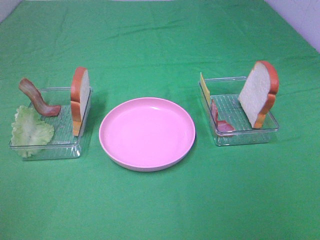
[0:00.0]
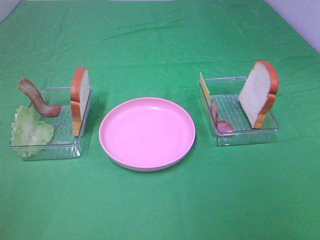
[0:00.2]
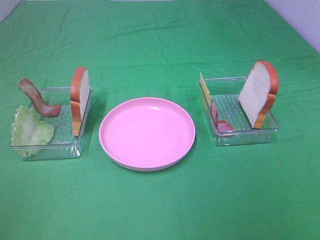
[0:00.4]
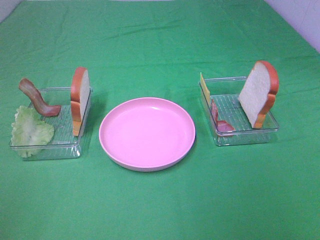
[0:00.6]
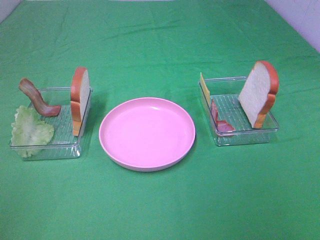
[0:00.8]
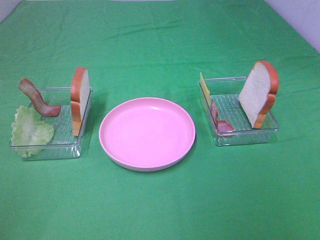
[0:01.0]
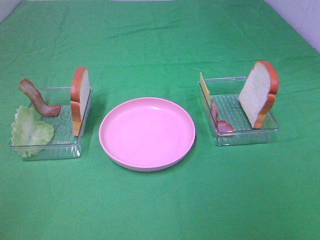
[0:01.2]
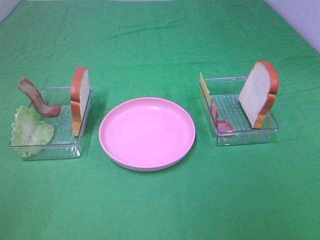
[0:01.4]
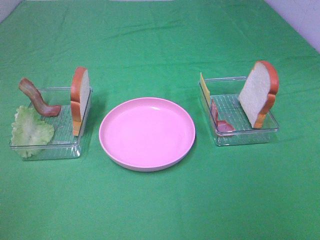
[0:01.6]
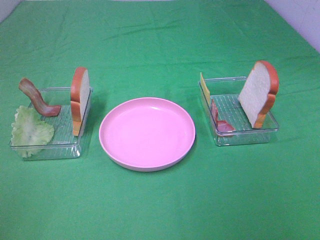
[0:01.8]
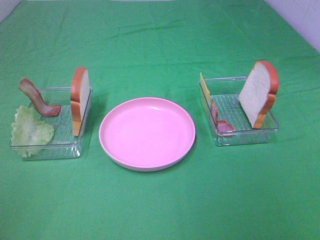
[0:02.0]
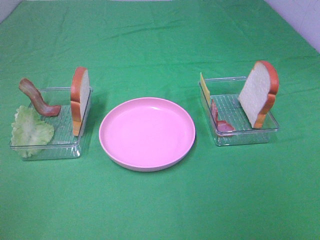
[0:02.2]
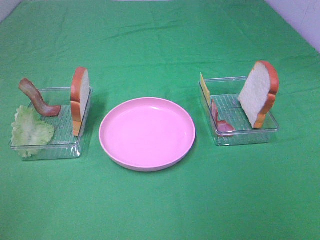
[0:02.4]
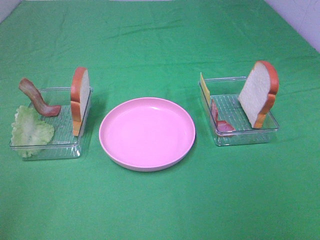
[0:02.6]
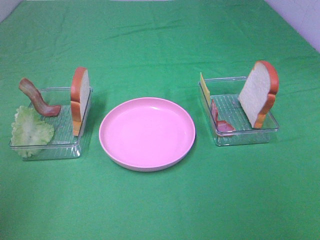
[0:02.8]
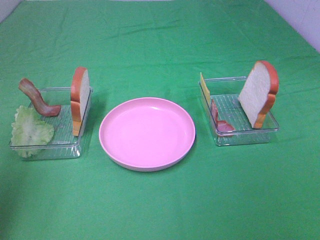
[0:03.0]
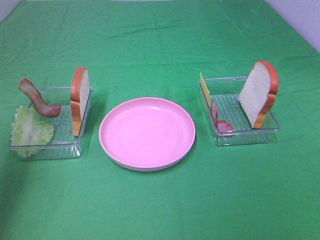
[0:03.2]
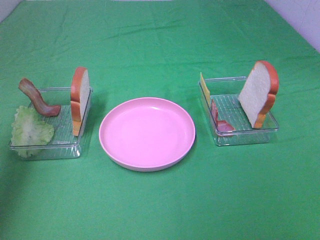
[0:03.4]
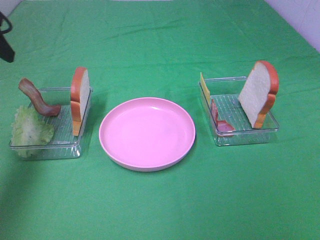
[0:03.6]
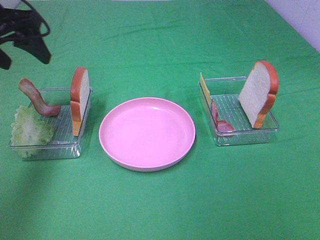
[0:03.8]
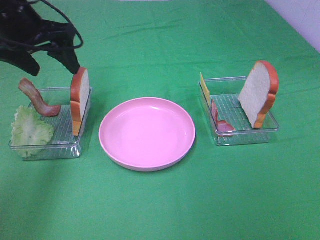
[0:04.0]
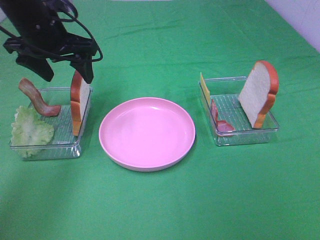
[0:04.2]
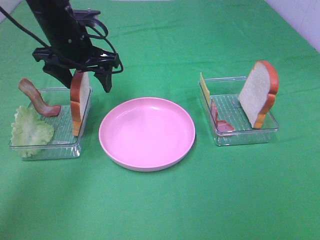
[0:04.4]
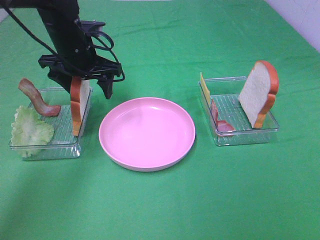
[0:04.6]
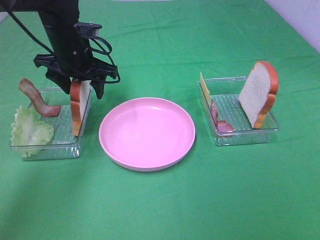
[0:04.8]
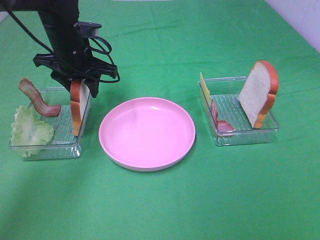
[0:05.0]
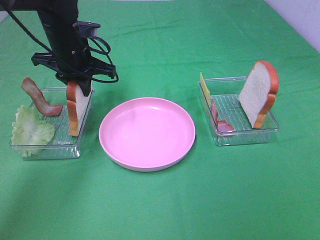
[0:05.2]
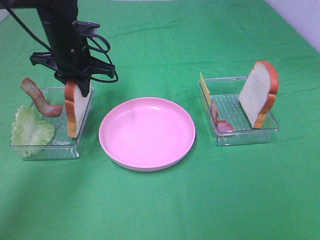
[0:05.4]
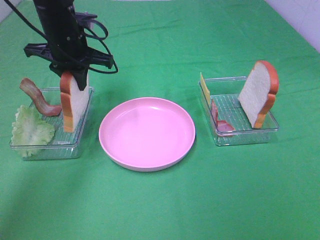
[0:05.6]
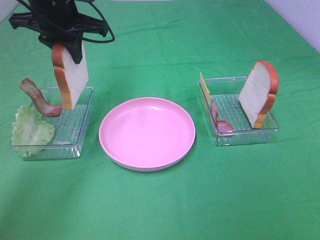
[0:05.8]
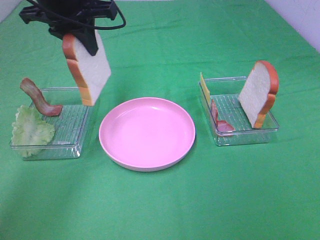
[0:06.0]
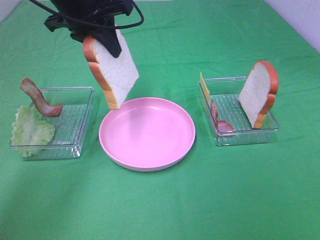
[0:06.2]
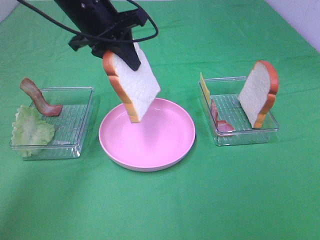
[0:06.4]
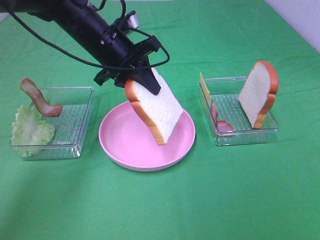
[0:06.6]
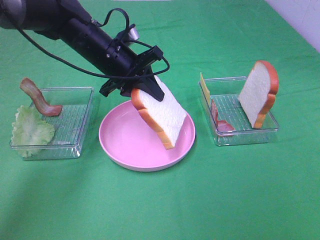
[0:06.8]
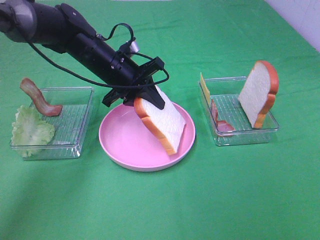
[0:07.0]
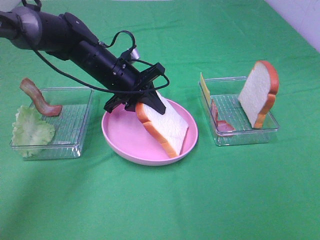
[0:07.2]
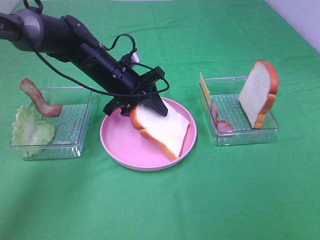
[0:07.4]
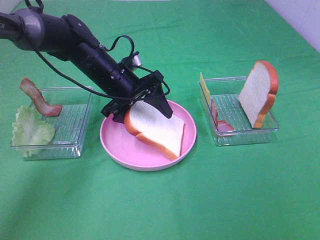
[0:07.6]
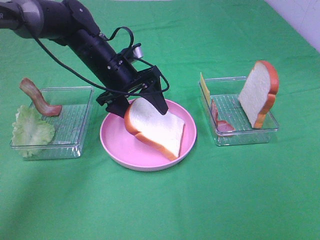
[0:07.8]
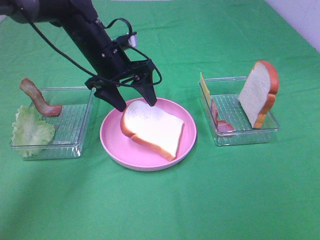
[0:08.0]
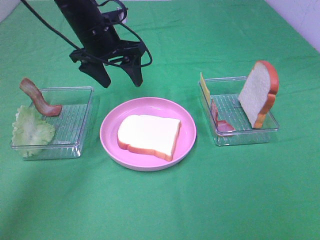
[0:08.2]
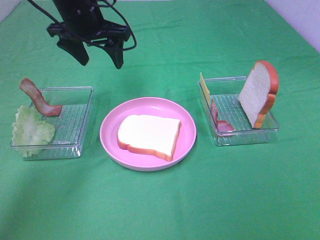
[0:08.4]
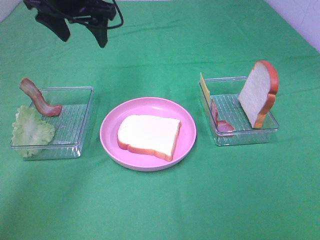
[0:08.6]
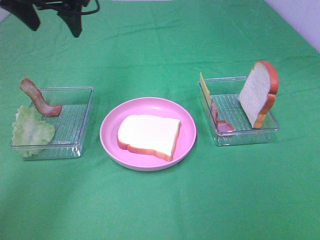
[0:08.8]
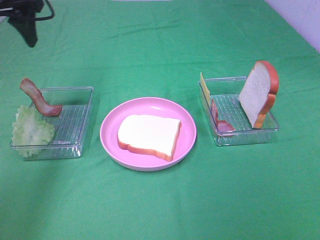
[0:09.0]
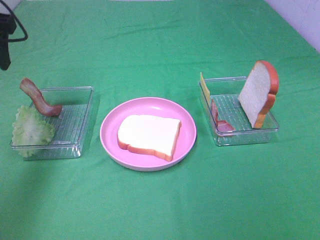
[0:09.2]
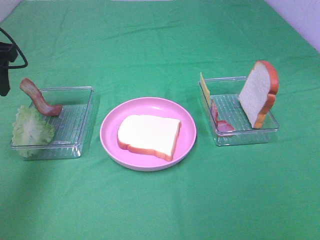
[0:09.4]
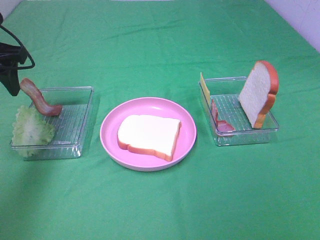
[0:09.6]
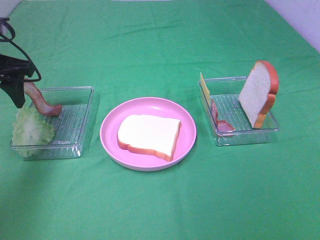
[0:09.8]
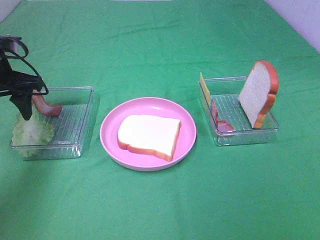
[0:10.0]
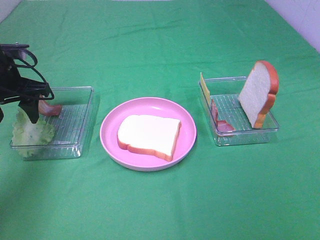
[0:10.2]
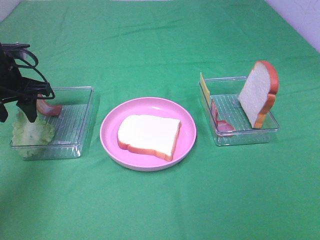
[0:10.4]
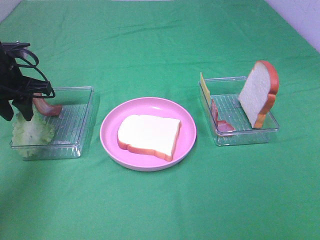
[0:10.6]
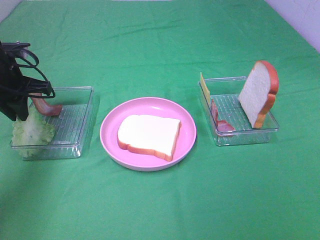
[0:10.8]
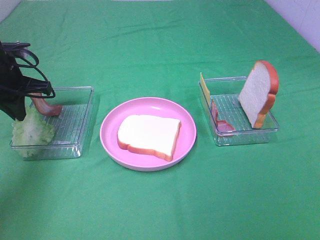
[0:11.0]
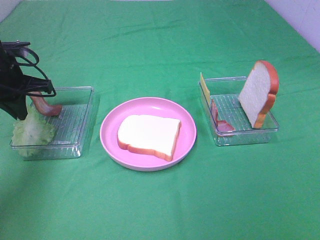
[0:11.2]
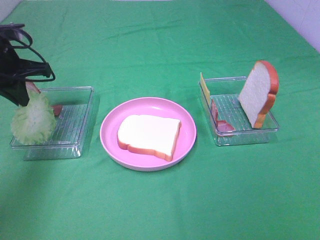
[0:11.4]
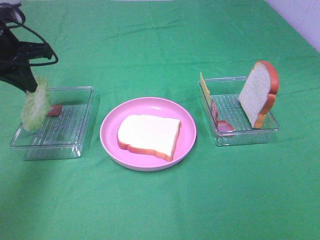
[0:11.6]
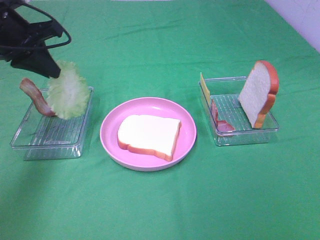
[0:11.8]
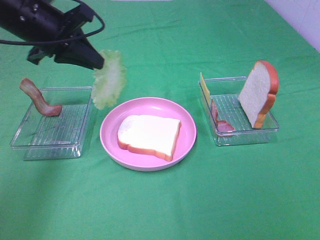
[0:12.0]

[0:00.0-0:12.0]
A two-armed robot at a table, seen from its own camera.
Task of the whole recording: Make sandwiches.
Step, 0.0 to 5.2 s: Left hand:grab the bread slice.
Step, 5.4 to 8.0 s: Left hand:place the bread slice on the plate.
Step, 8.2 to 10.8 s: Left hand:grab the lettuce slice.
0.0 to 1.6 s: The two grippers keep their place.
1.6 to 3.0 s: The left gripper is displaced forward by some 15 cm.
3.0 to 4.4 s: The left gripper heads forward, to the right and downward, covering roughly 35 cm.
4.4 to 6.0 s: The left gripper moves upward, some 10 cm, and closes its fingers.
6.0 to 7.6 s: The left gripper heads downward, covering some 15 cm, and opens.
7.6 to 9.0 s: The left gripper goes approximately 25 cm upward and to the left.
9.0 to 10.4 s: The left gripper goes approximately 15 cm downward.
10.4 to 12.0 s: The left gripper moves to the right and upward, approximately 10 cm, and closes its fingers.

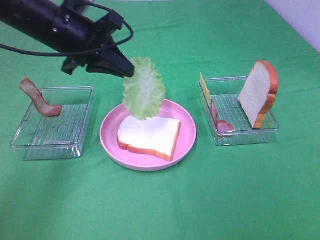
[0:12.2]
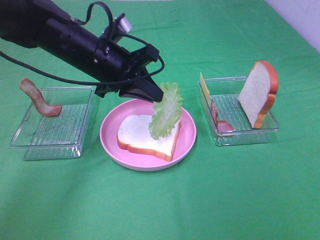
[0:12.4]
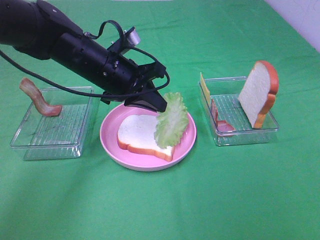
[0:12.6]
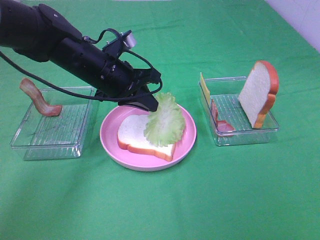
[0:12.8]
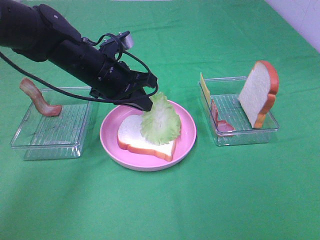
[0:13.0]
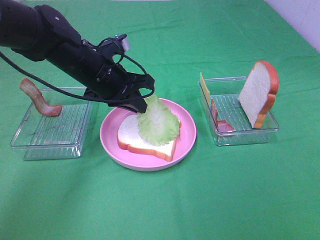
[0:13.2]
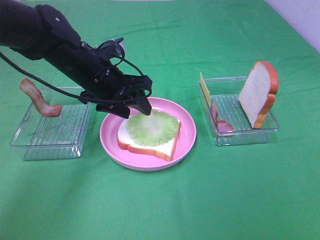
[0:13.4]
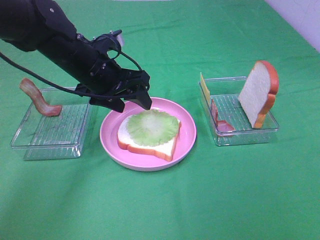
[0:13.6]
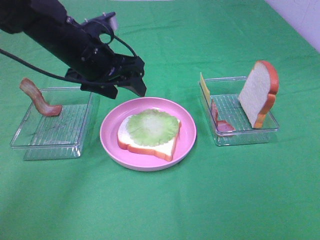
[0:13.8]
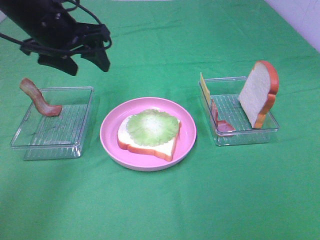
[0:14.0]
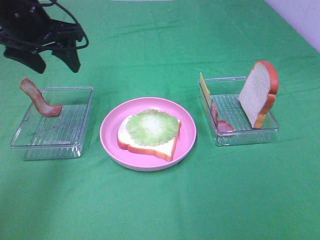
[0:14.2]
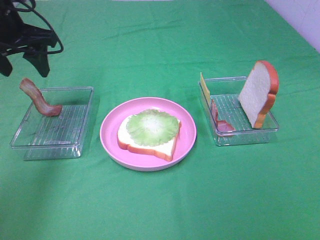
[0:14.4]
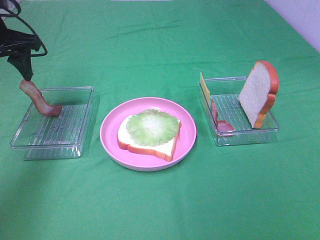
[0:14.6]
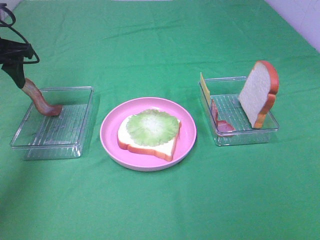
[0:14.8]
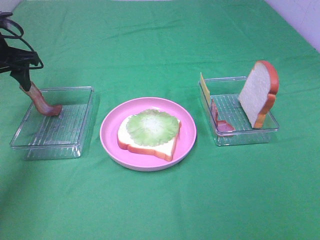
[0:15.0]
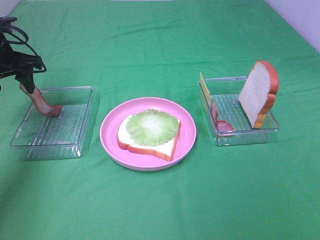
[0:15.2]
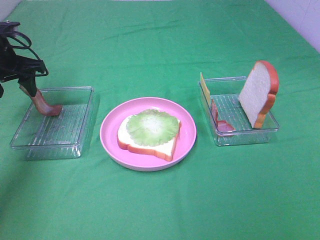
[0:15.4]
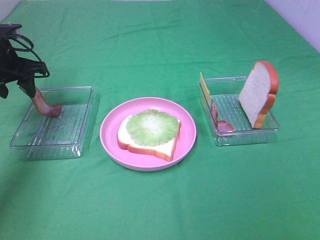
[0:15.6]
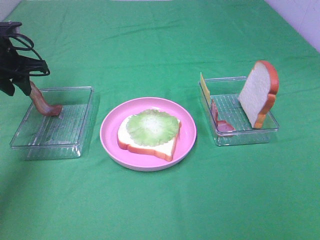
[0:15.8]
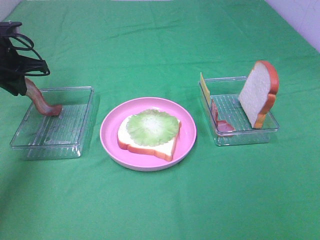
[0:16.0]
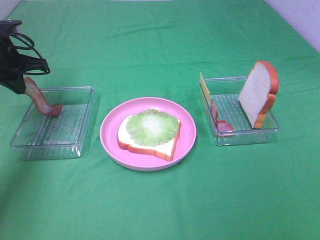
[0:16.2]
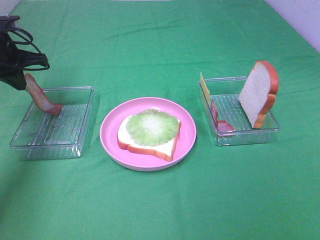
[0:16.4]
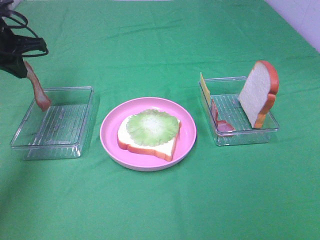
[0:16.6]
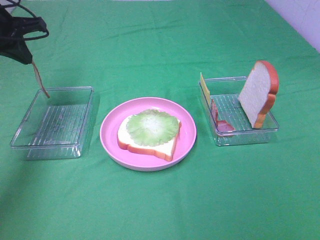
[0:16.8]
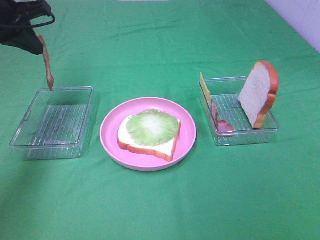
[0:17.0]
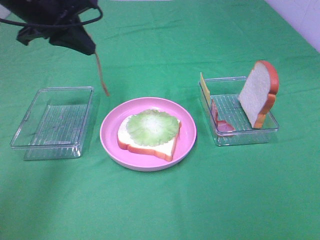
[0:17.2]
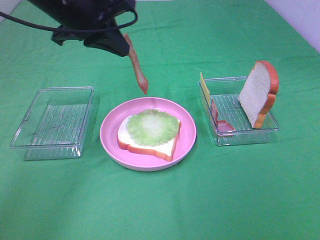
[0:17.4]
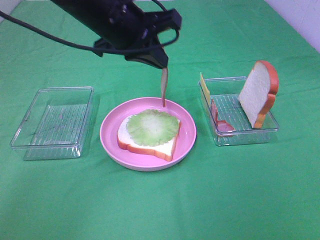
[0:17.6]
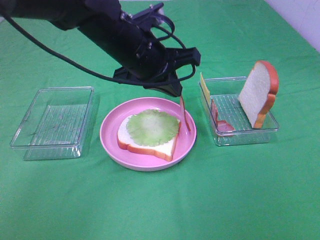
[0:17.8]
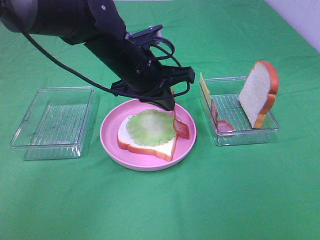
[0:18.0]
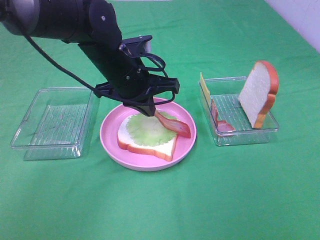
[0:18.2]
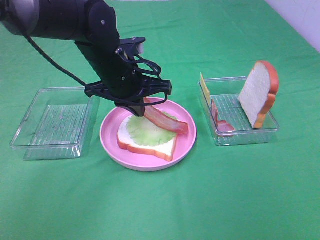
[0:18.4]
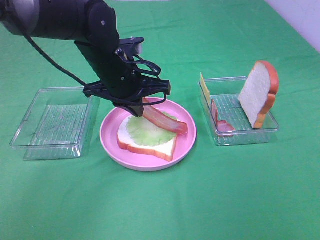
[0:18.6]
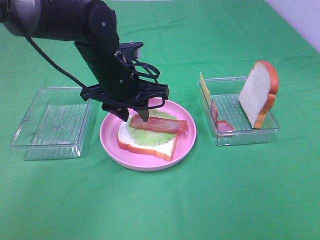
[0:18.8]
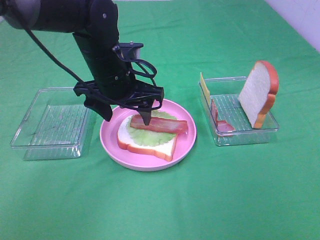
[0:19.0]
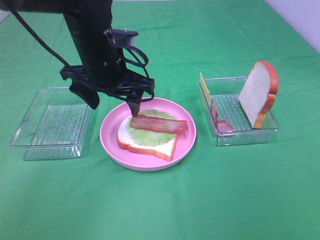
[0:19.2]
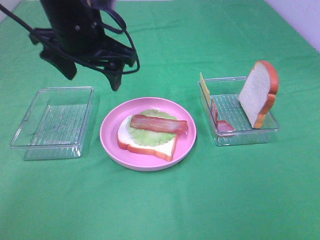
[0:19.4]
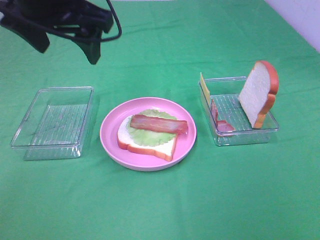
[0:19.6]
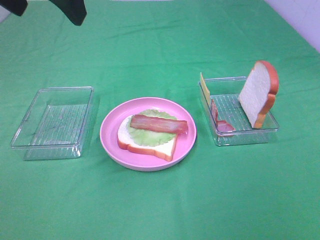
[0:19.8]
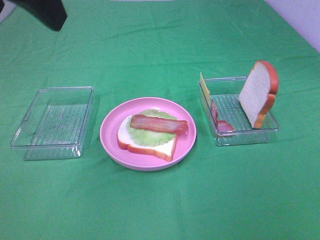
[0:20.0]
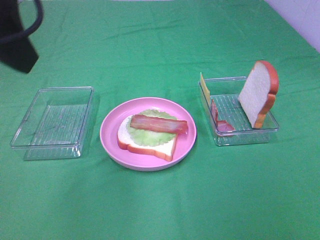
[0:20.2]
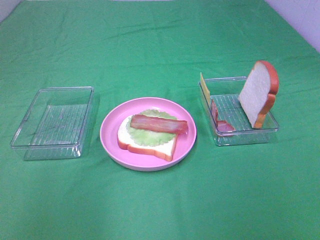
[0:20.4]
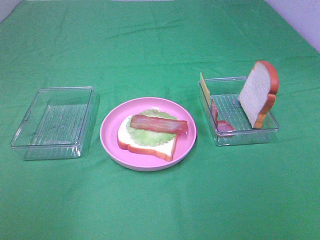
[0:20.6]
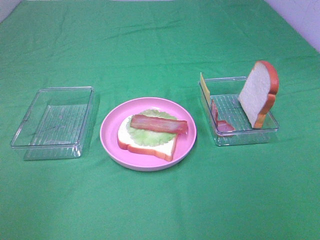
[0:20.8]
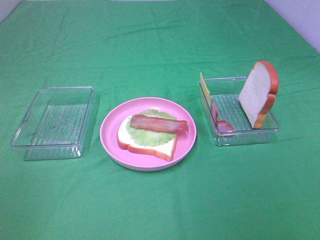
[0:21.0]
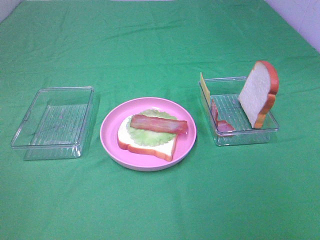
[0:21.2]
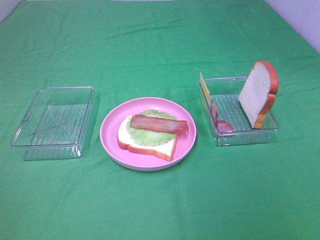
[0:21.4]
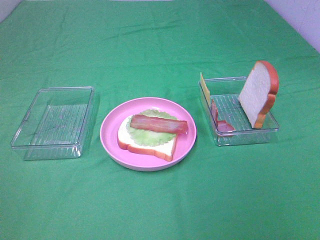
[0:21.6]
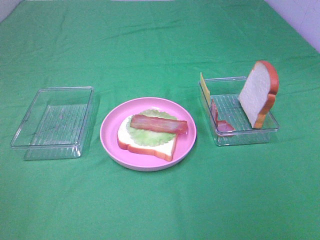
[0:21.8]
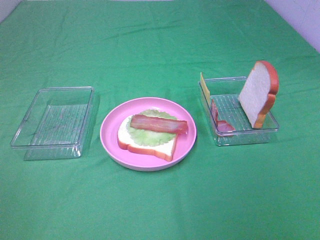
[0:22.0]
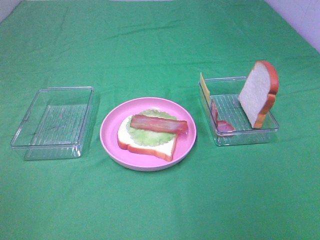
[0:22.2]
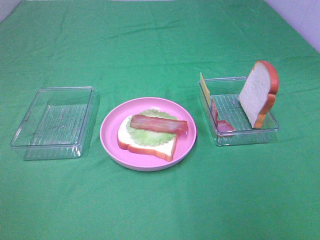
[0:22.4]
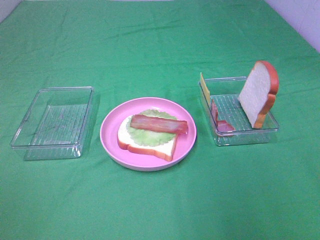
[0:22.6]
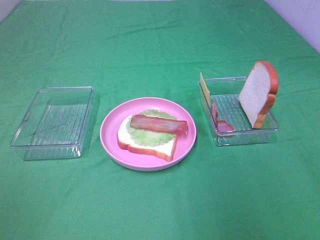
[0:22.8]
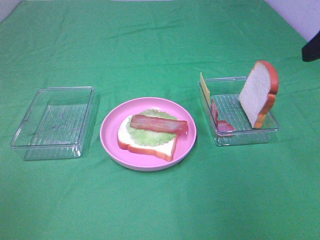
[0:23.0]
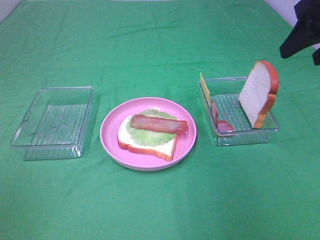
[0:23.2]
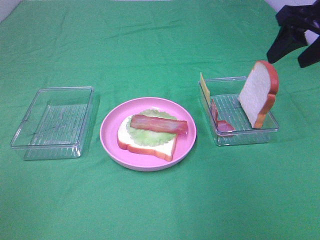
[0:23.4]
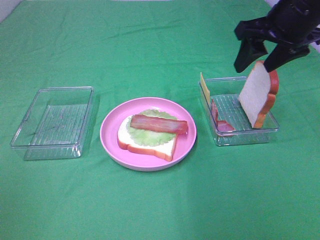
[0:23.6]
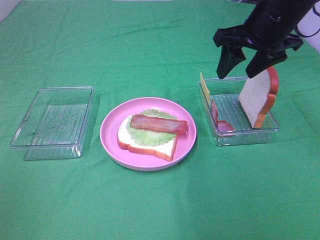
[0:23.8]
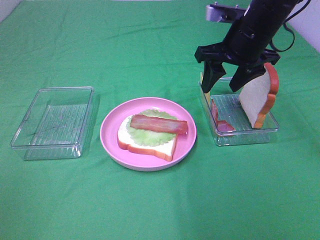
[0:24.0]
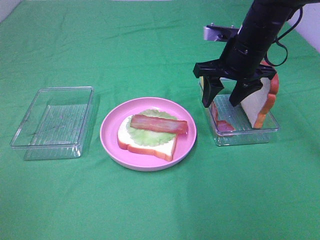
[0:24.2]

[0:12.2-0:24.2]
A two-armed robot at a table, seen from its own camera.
Task of the whole recording: Make sandwiches.
Step, 12.2 to 13.6 s: Left hand:place the lettuce slice on the bread slice.
Step, 13.8 to 16.4 s: Left hand:grab the bacon.
Step, 16.6 to 19.2 s: Left hand:place bacon on lettuce slice.
12.2 to 13.8 s: The left gripper moves some 10 cm downward and comes back, and opens up.
13.8 to 15.2 s: The left gripper shifts approximately 15 cm to the left.
15.2 to 16.6 s: The left gripper closes.
16.6 to 18.2 s: The left gripper goes some 25 cm to the right.
18.2 to 19.8 s: The left gripper heads upward and backward, covering about 25 cm, and opens.
19.8 to 21.2 s: The left gripper travels backward, to the left and downward by approximately 35 cm.
22.6 to 24.2 s: The right gripper travels forward, to the left and downward by about 30 cm.
